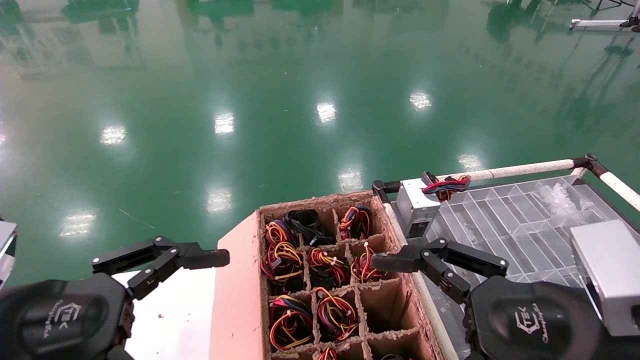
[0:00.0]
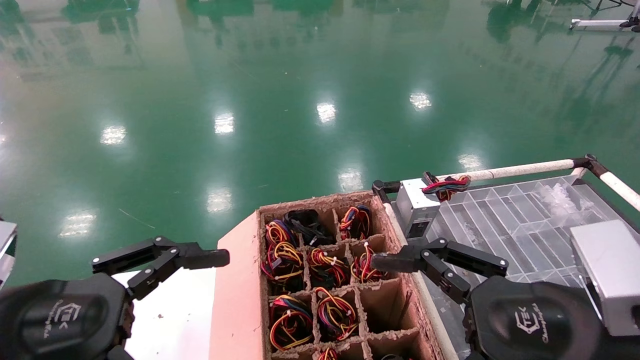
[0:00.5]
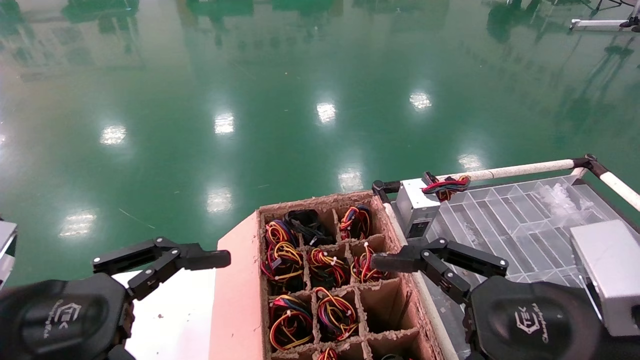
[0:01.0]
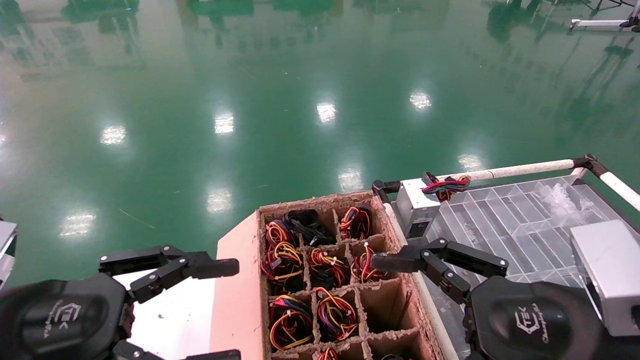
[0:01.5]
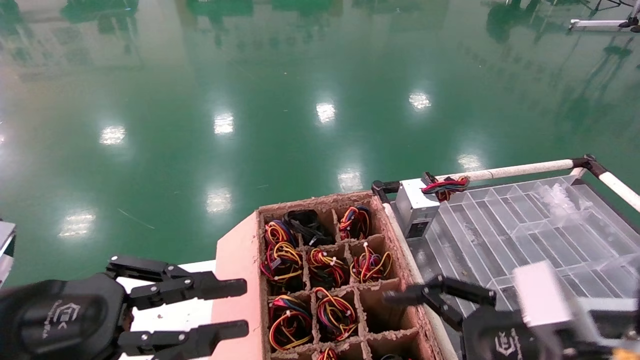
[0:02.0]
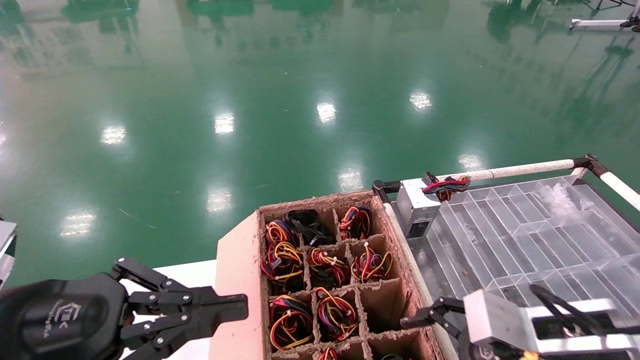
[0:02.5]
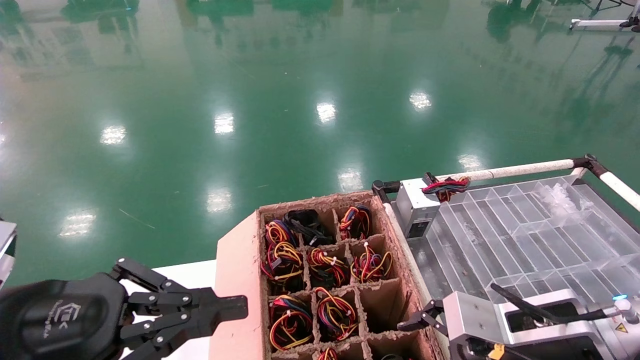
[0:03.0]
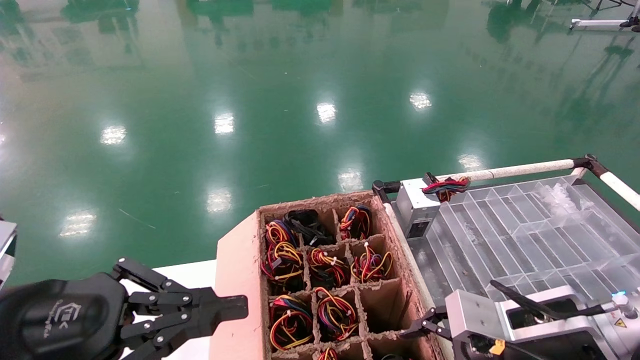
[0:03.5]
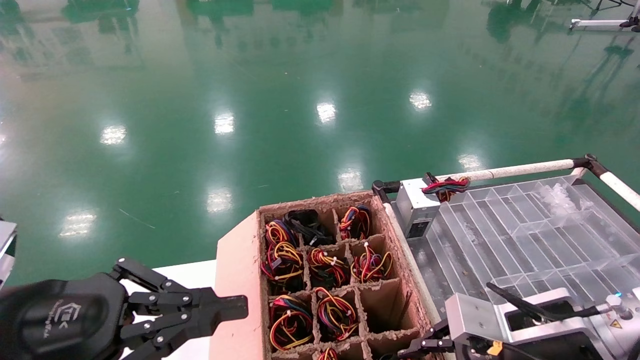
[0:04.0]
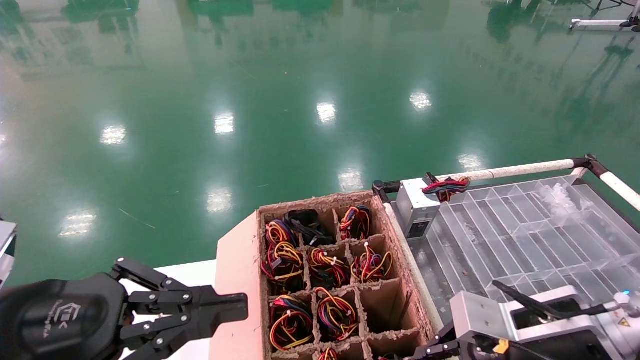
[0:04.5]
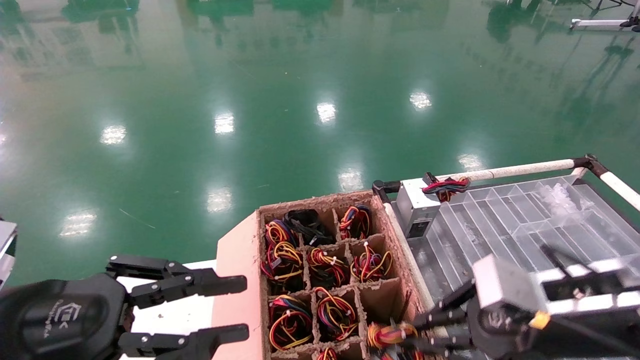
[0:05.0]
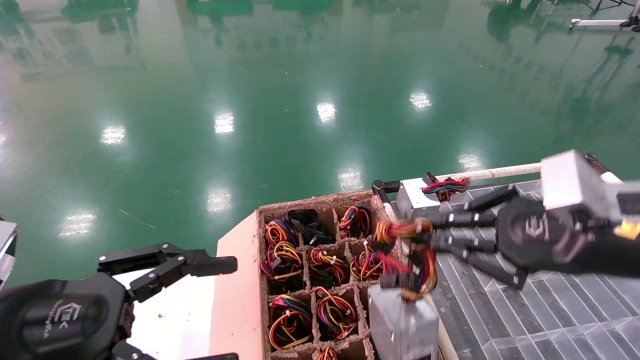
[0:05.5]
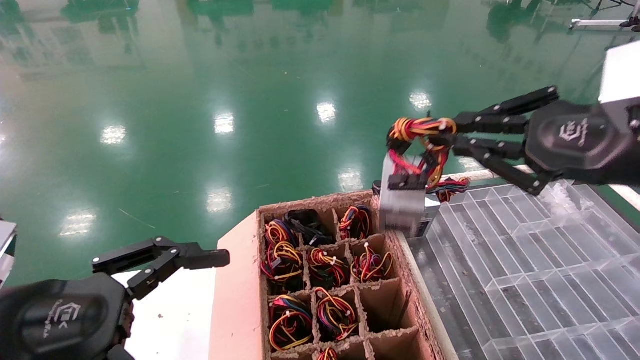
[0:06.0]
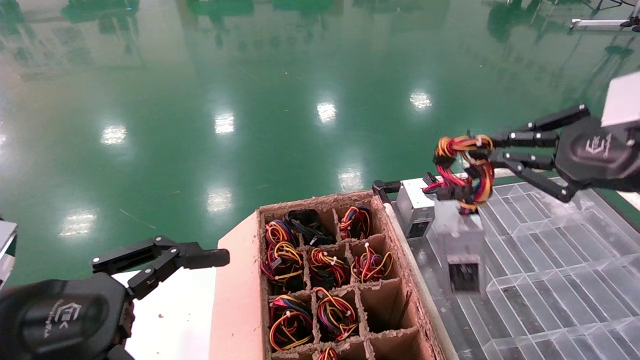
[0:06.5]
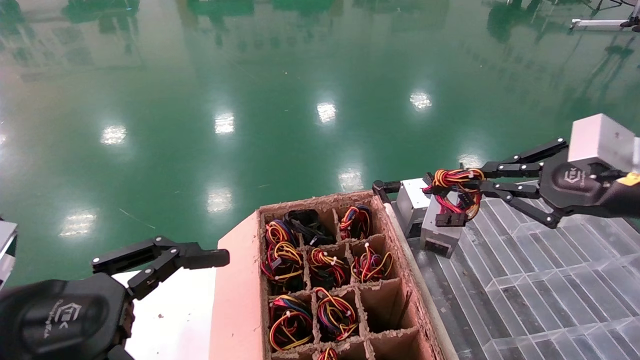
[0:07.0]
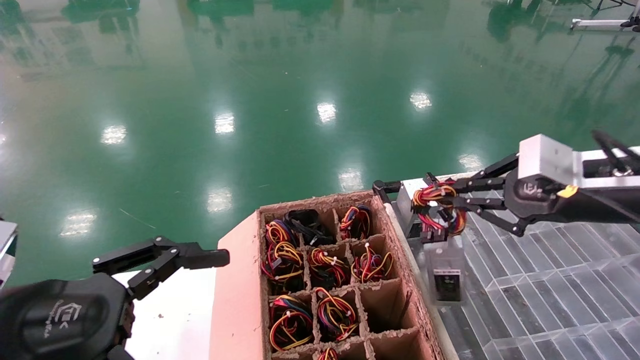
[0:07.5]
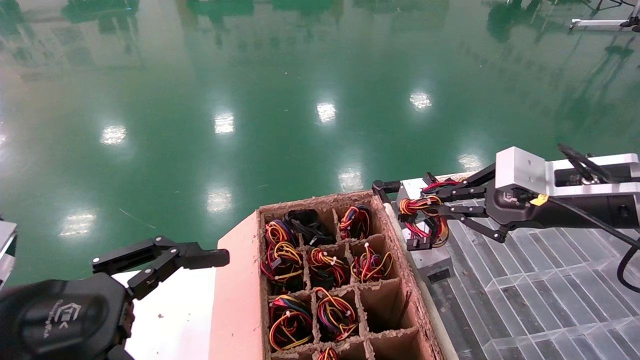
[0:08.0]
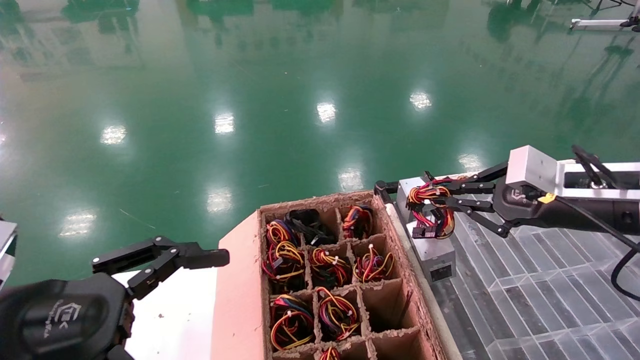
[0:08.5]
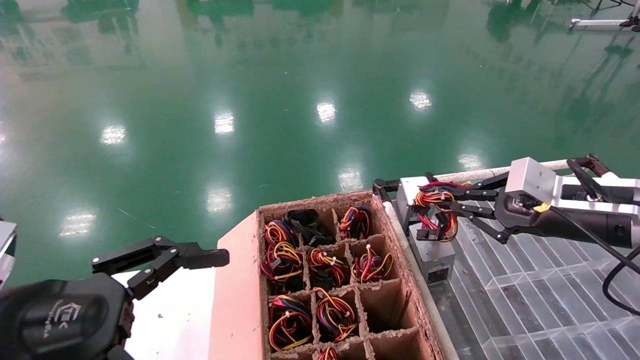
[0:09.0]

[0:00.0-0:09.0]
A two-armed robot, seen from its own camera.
Step, 0:02.5 to 0:04.5: Grab and lift the power supply from the large box.
0:00.0 to 0:02.0: The left gripper closes up.
0:02.0 to 0:04.5: The right gripper heads forward, covering approximately 5 cm, and closes, while the left gripper closes its fingers.
0:04.5 to 0:07.0: The right gripper shifts roughly 20 cm upward and to the right. Meanwhile the left gripper opens up.
0:07.0 to 0:09.0: The right gripper moves forward and downward, roughly 10 cm.

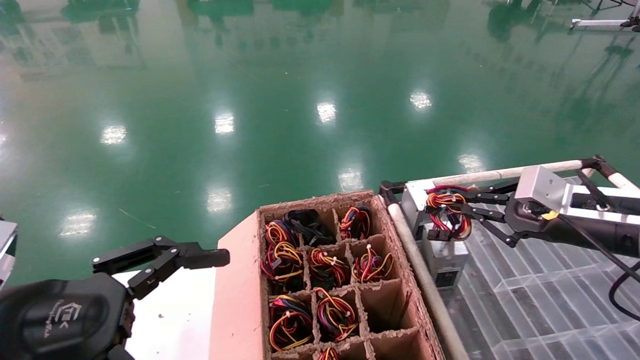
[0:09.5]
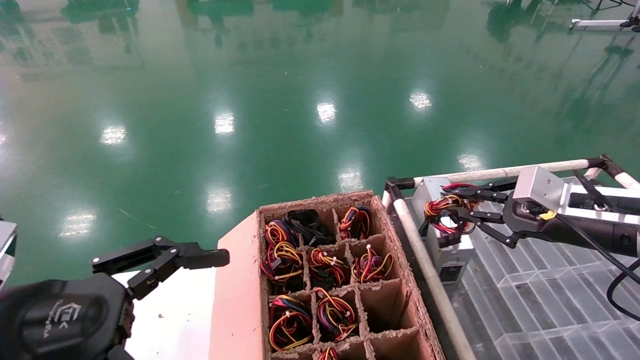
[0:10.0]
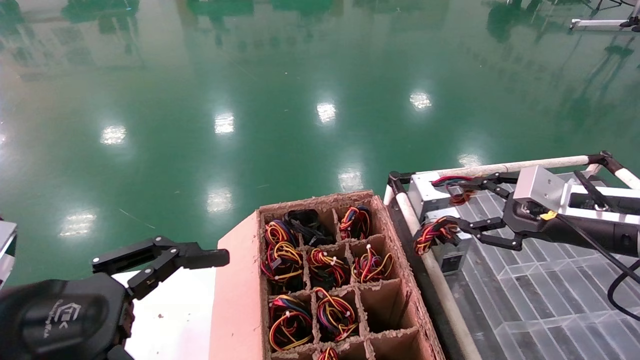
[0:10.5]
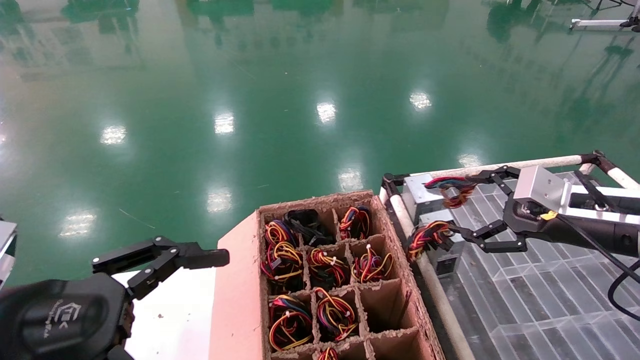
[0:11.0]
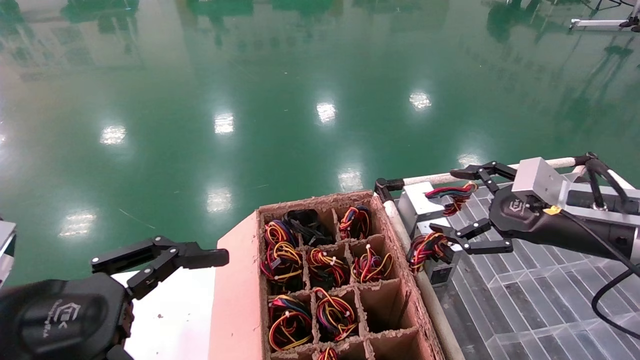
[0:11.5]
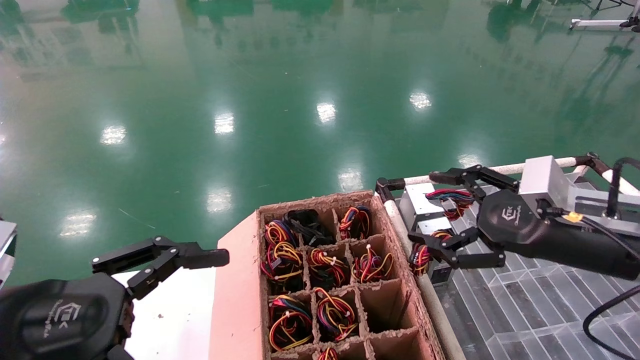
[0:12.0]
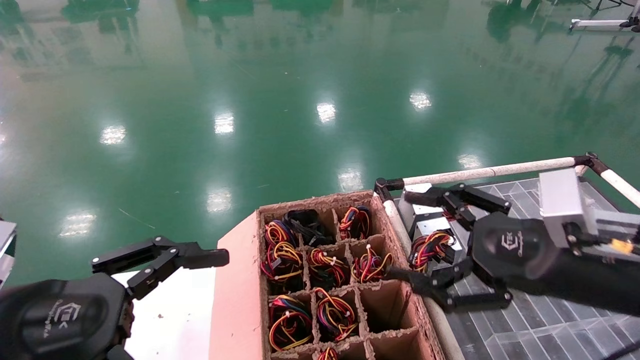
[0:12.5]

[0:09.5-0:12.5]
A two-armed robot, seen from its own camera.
0:09.5 to 0:11.0: The right gripper opens its fingers.
0:11.0 to 0:12.5: The right gripper shifts approximately 15 cm backward and to the left.
